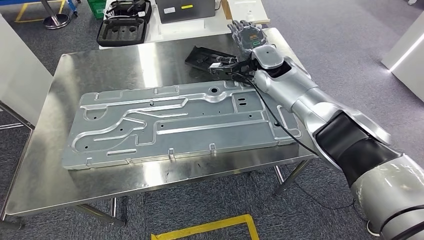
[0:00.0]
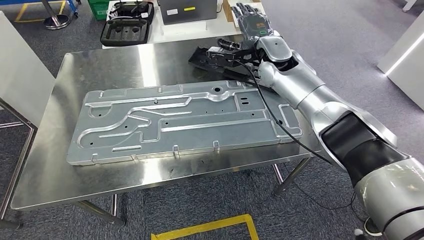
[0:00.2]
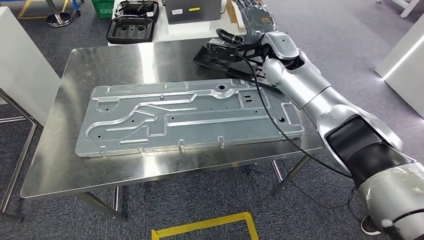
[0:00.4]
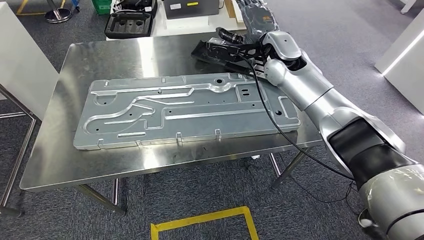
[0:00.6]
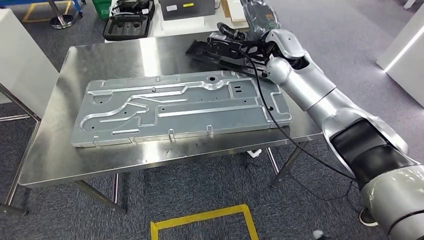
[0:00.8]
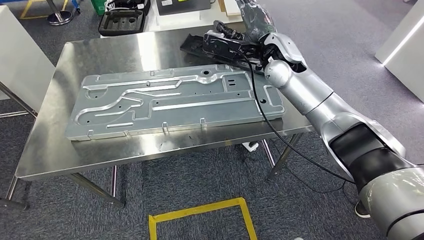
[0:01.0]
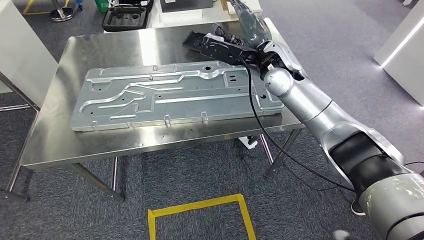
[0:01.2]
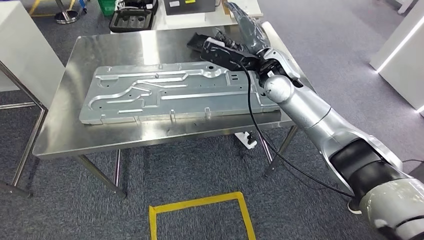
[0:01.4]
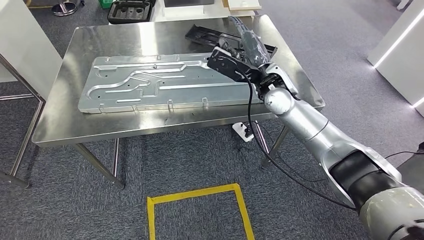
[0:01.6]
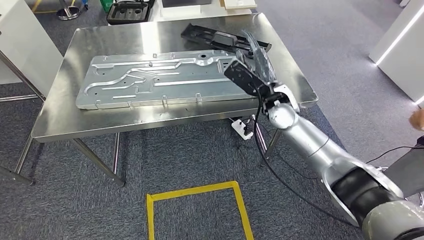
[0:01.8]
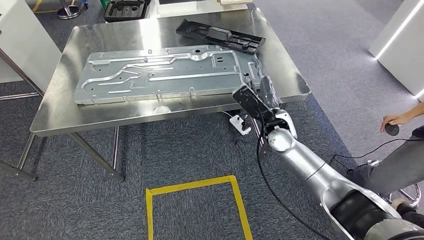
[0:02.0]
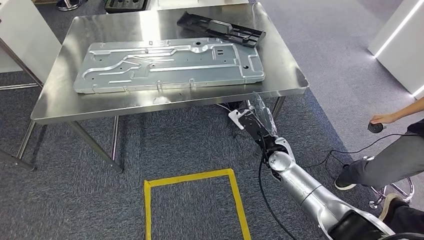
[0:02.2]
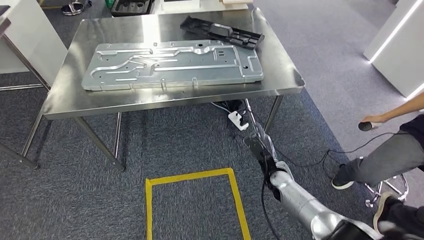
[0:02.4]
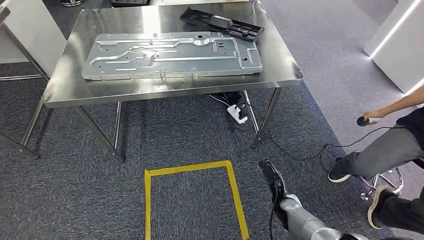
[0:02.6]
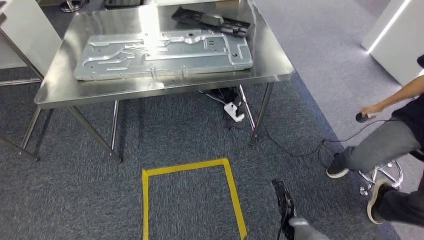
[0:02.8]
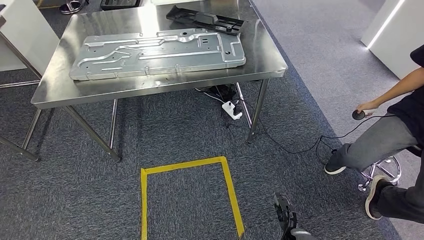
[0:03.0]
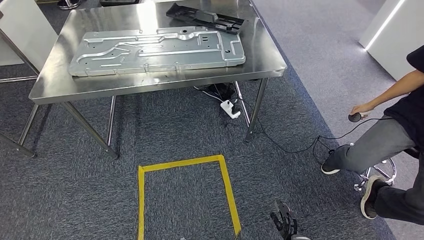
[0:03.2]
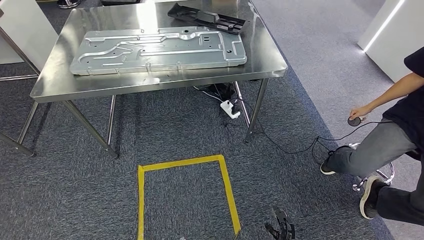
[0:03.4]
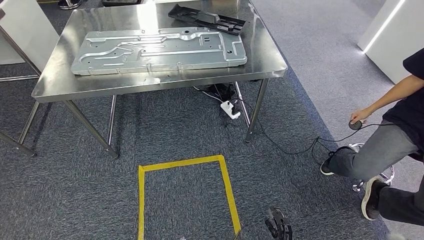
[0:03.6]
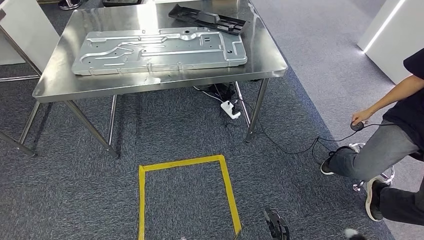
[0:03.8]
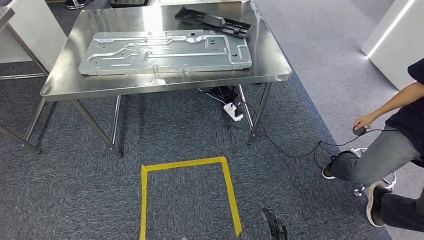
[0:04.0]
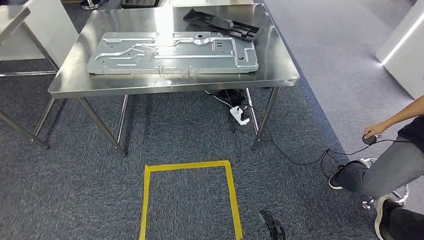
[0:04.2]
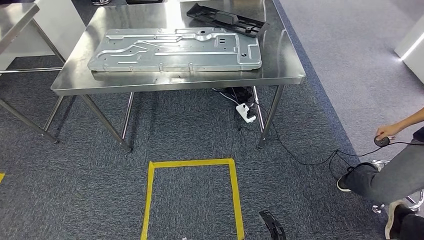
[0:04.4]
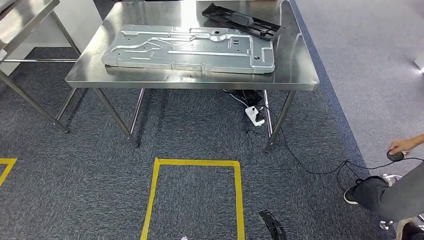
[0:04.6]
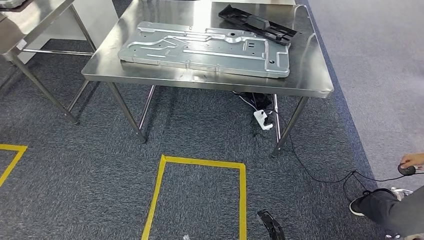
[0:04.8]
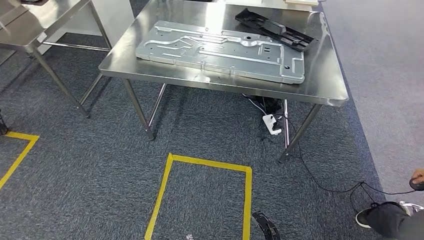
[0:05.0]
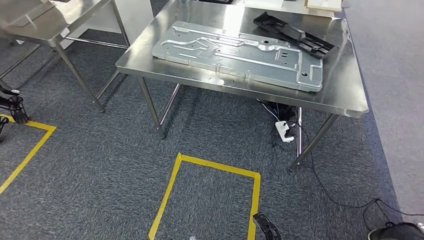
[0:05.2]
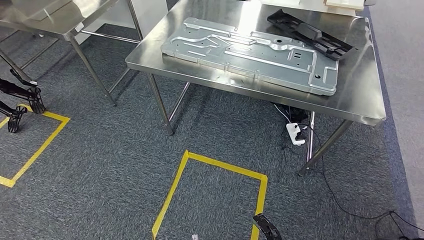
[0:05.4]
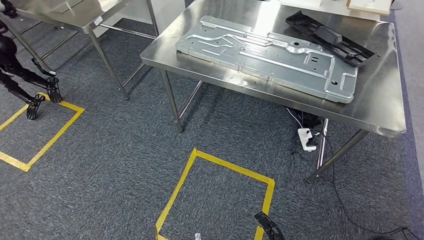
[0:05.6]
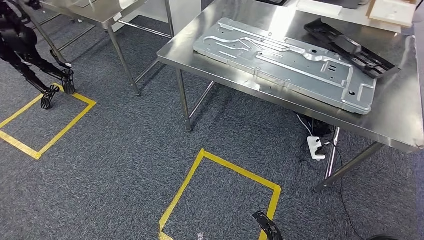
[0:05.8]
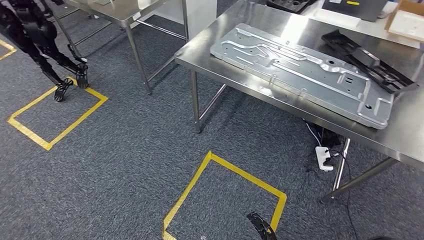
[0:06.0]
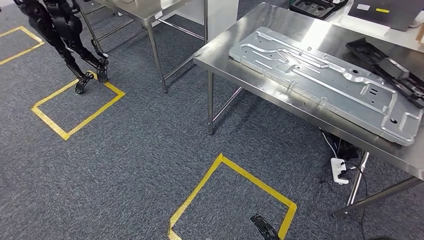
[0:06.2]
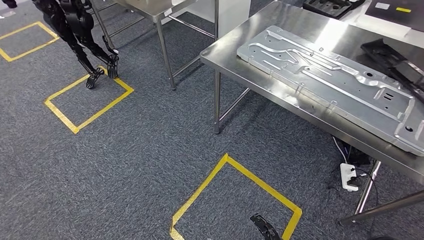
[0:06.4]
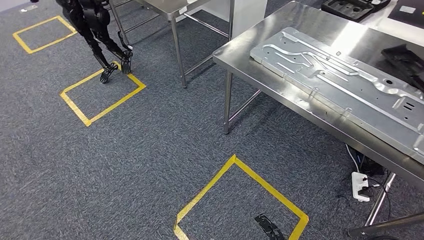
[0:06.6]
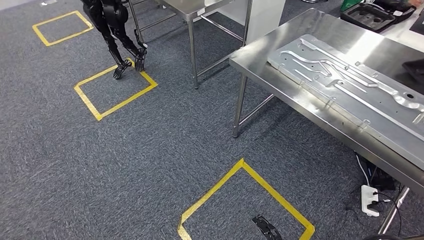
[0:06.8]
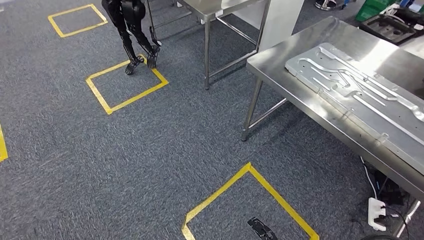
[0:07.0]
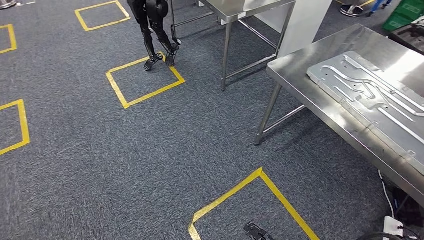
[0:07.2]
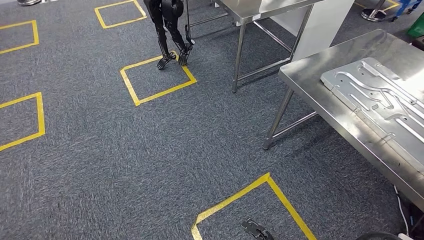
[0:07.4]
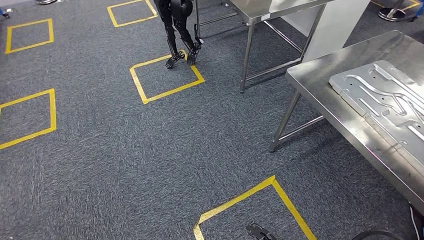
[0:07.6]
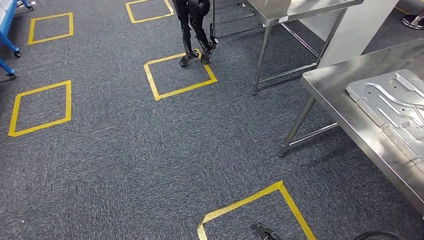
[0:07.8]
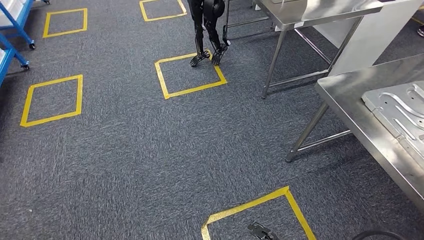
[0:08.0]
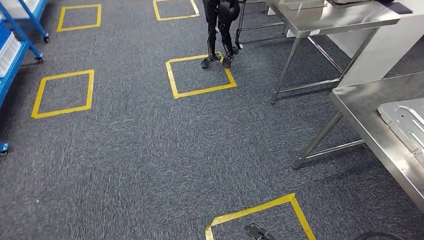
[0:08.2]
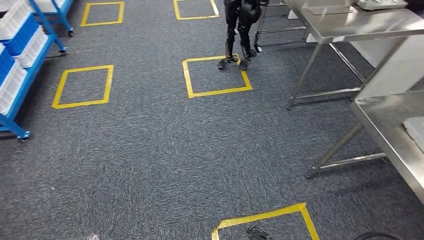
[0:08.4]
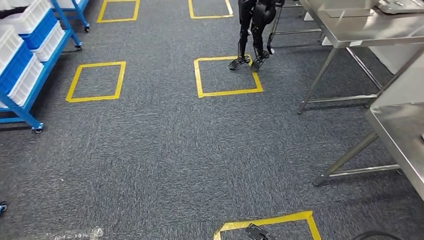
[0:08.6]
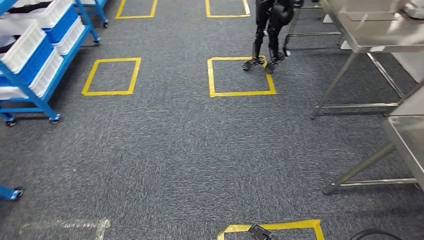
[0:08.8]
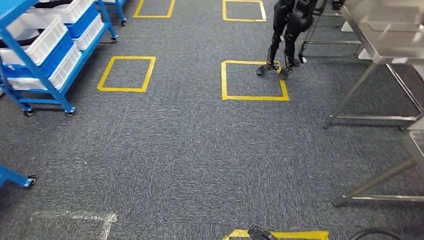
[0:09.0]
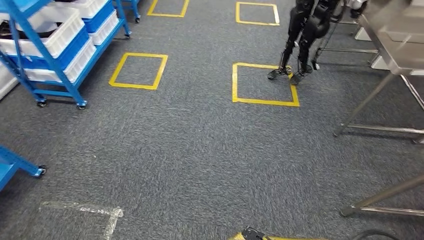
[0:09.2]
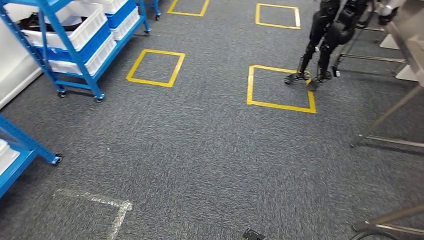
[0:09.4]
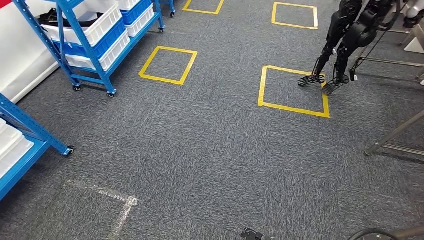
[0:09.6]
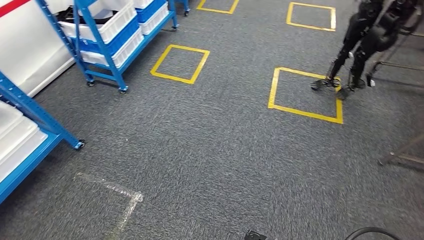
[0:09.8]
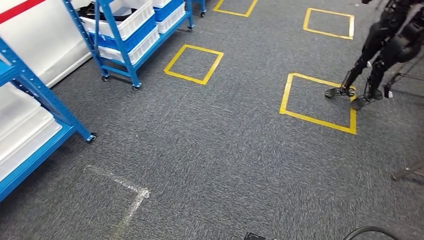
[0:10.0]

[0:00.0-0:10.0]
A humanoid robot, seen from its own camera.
Step, 0:00.0 to 0:05.0: Insert the large parts into the corresponding slots on the workbench.

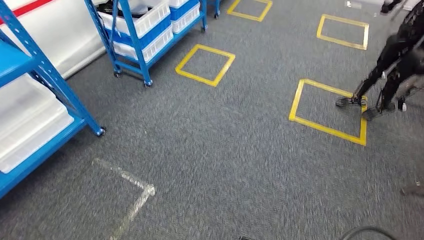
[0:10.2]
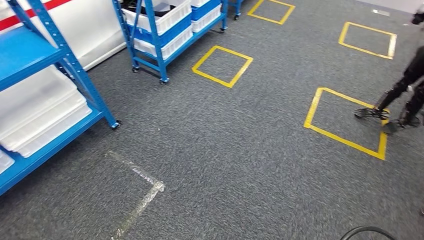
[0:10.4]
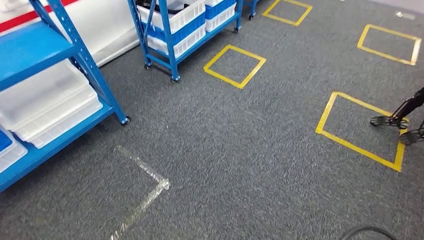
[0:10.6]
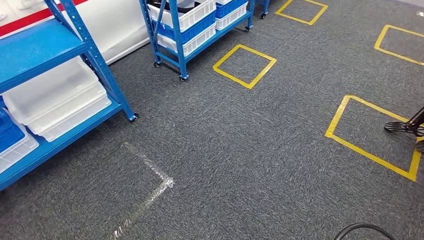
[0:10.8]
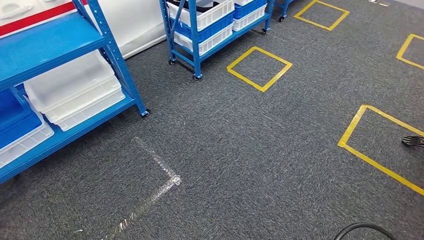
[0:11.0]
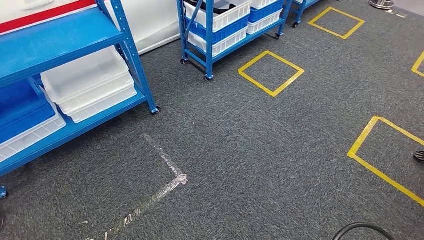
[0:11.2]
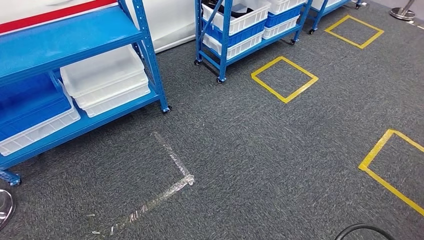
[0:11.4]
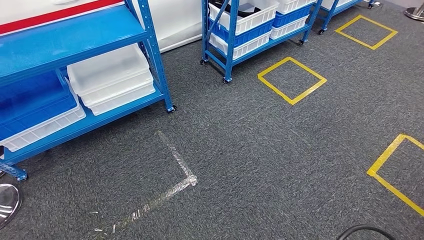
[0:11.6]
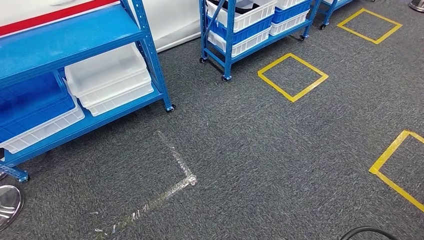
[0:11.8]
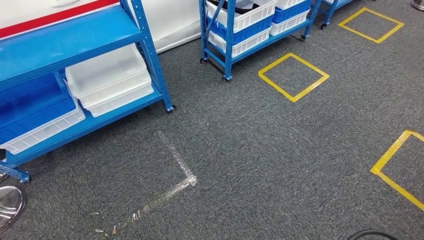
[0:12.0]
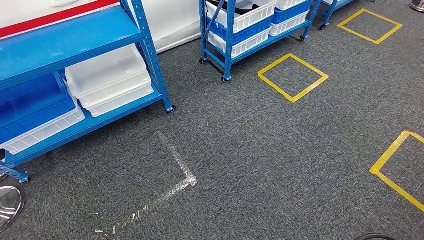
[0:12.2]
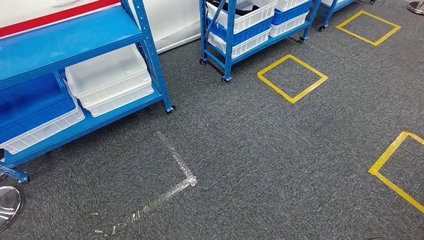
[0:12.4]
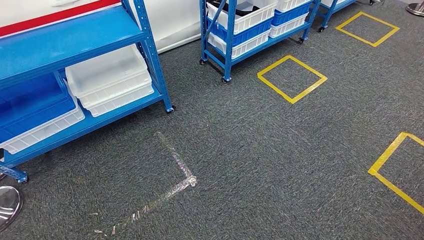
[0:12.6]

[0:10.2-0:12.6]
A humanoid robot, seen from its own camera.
Step, 0:10.2 to 0:12.6: Return to the initial position at the shelf.
0:11.4 to 0:12.6: Both hands travel together backward, approximately 5 cm.

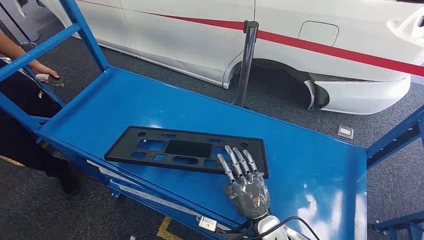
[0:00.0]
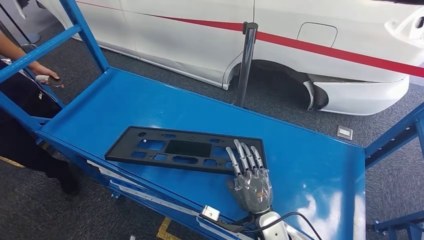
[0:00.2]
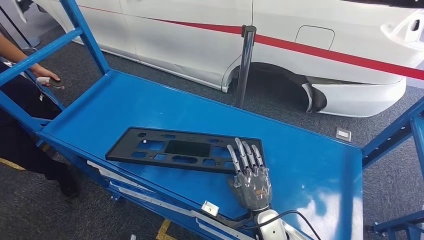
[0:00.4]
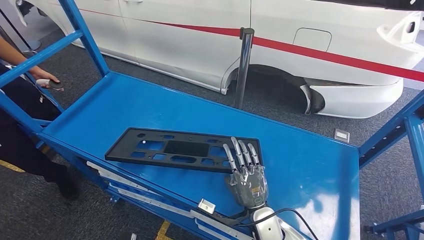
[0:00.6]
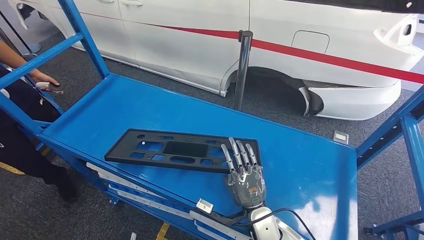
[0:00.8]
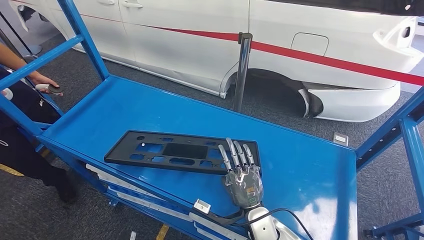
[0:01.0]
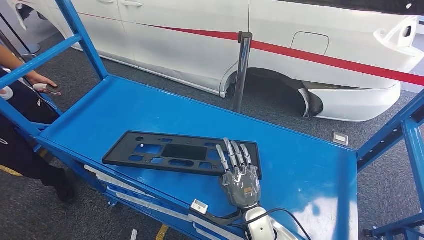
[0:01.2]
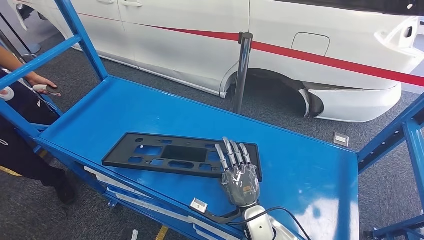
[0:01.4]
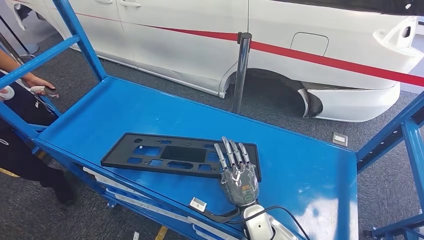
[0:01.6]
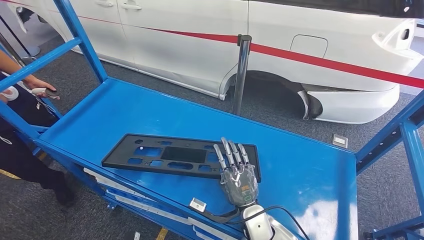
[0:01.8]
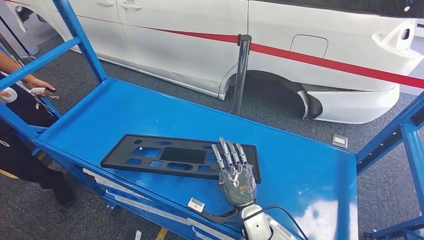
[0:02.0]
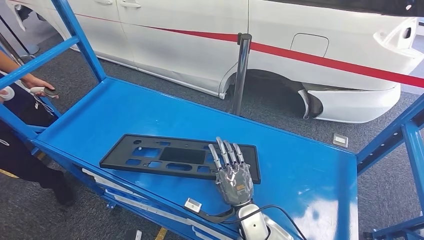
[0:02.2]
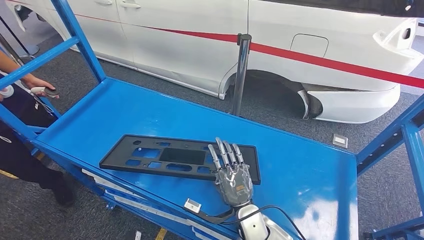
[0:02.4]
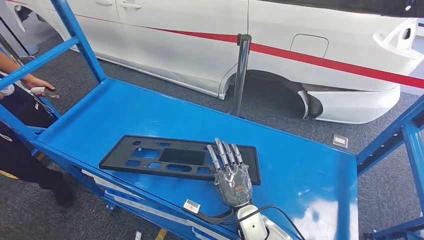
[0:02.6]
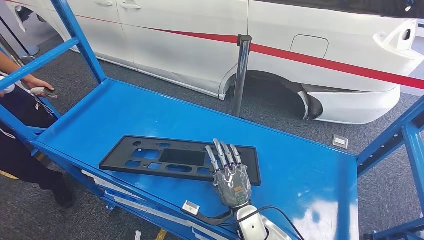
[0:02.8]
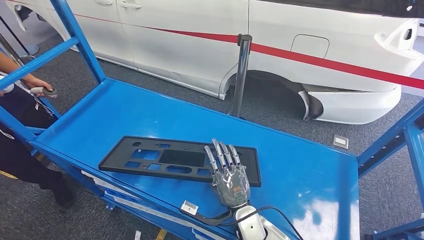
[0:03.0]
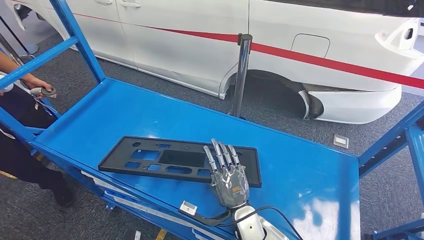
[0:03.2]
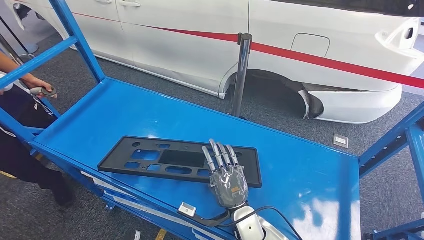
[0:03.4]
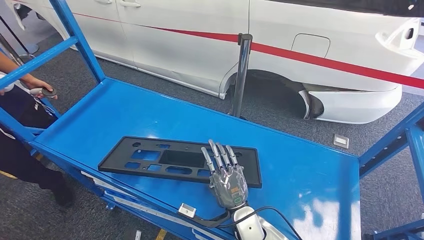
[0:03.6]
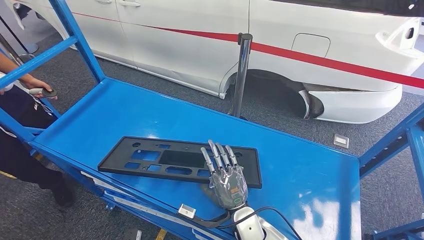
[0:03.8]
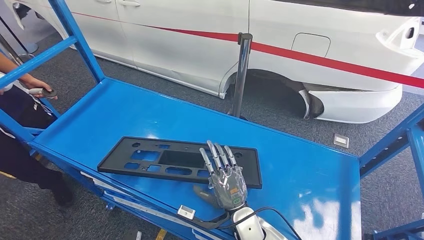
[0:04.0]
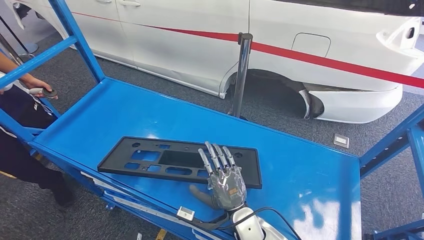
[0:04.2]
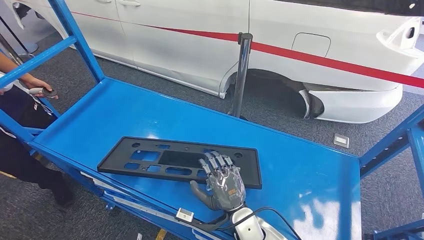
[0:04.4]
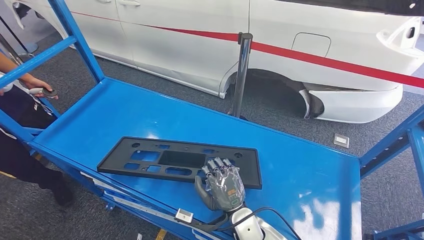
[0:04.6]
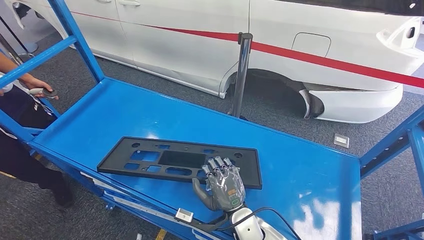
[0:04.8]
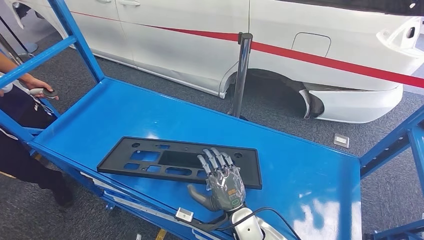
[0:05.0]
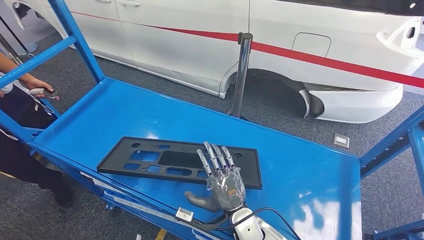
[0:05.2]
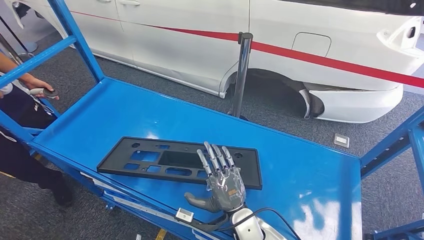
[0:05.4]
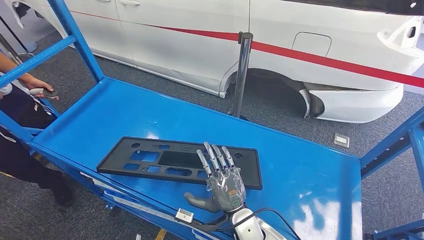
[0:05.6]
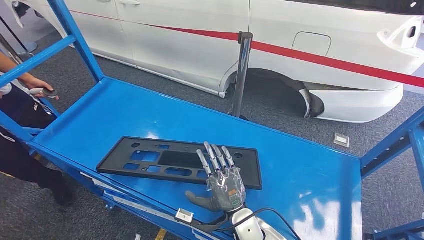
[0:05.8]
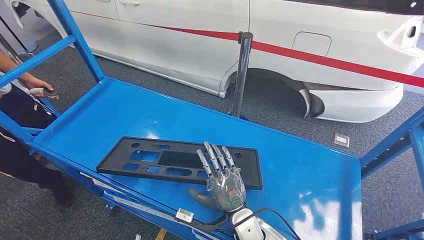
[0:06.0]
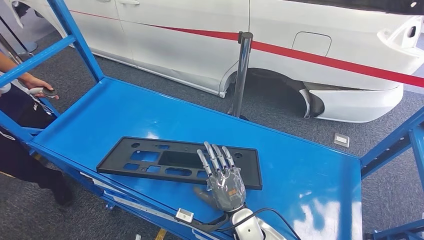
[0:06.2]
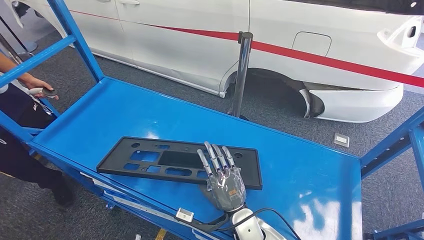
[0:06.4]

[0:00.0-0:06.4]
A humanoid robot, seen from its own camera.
0:01.6 to 0:04.8: The hands move only a little.
0:04.8 to 0:06.4: Neither hand changes place.
